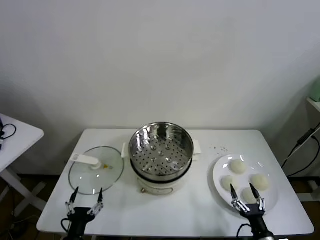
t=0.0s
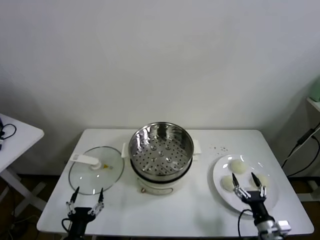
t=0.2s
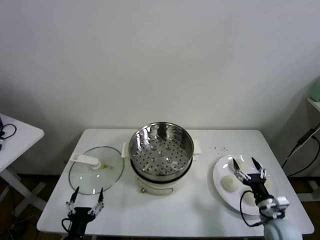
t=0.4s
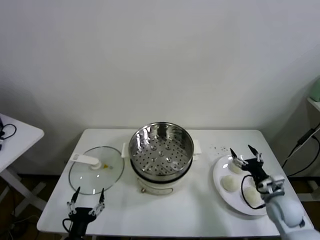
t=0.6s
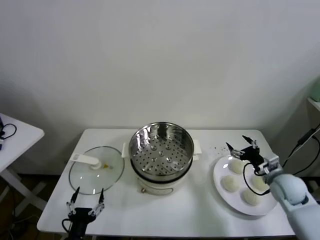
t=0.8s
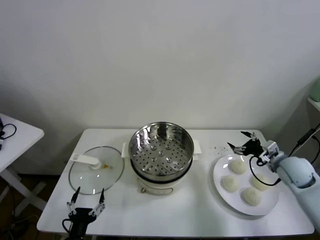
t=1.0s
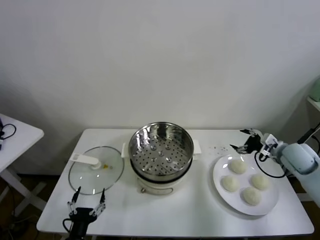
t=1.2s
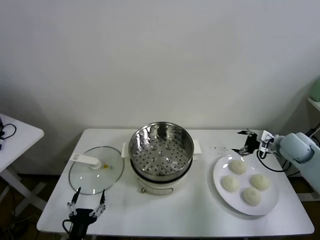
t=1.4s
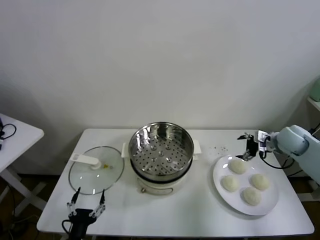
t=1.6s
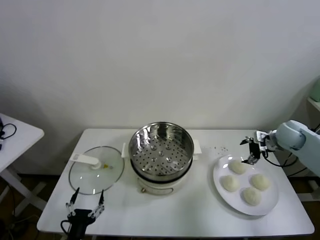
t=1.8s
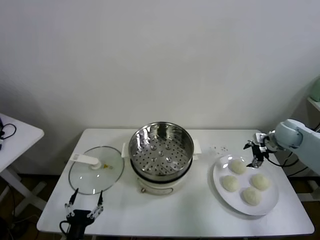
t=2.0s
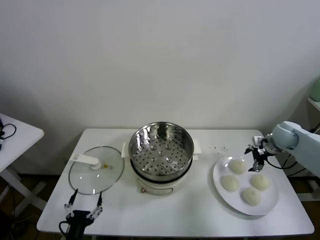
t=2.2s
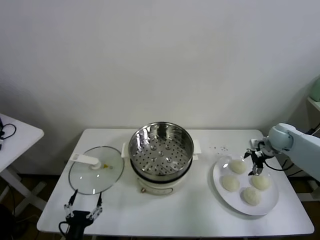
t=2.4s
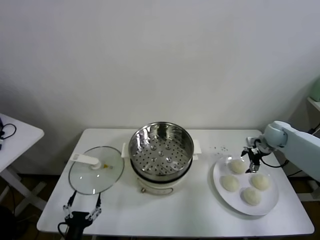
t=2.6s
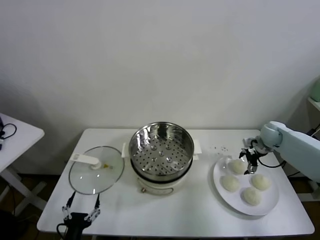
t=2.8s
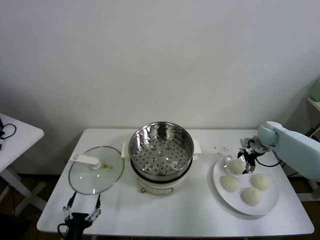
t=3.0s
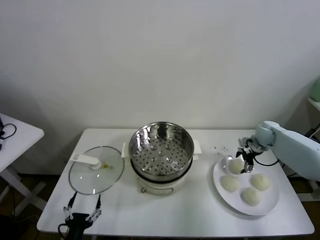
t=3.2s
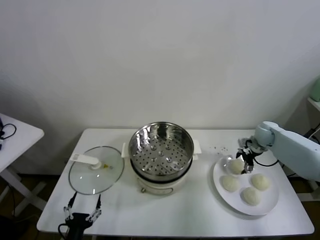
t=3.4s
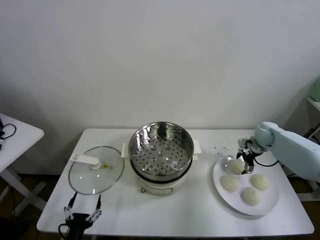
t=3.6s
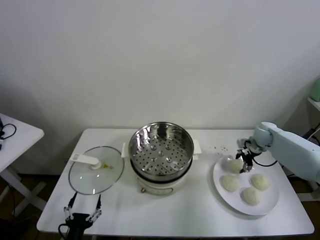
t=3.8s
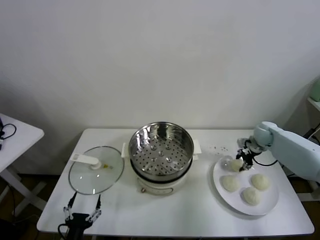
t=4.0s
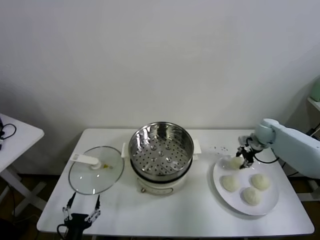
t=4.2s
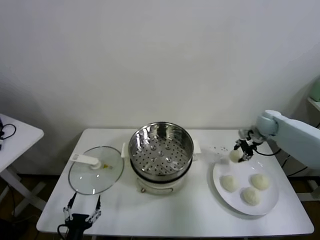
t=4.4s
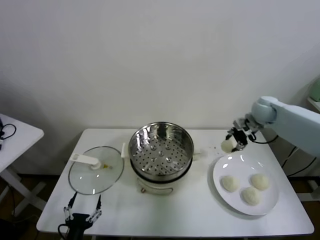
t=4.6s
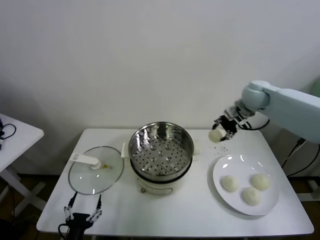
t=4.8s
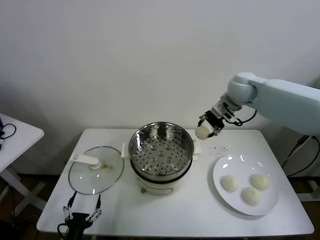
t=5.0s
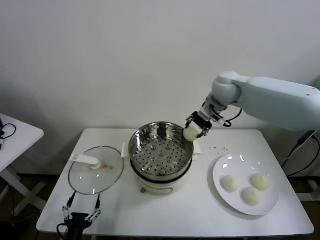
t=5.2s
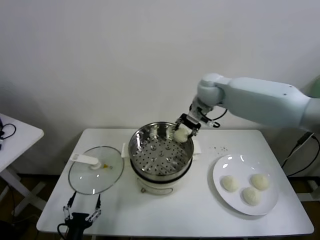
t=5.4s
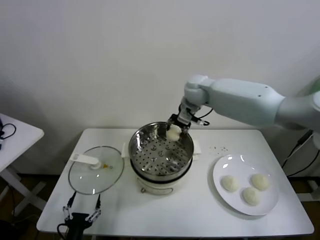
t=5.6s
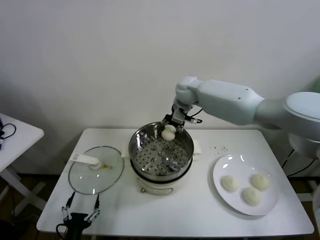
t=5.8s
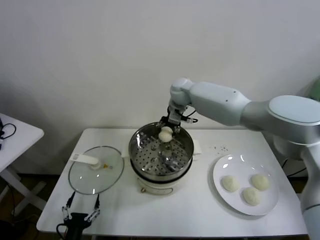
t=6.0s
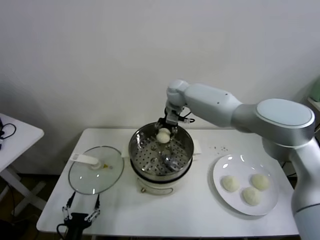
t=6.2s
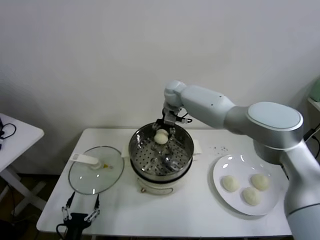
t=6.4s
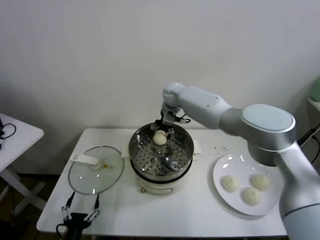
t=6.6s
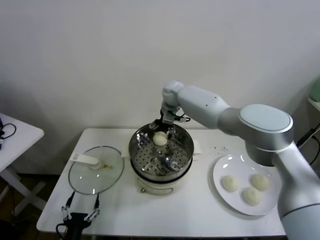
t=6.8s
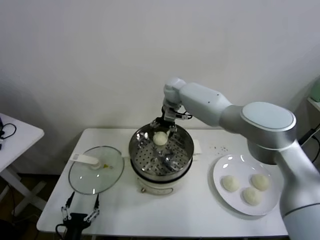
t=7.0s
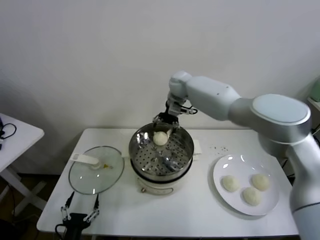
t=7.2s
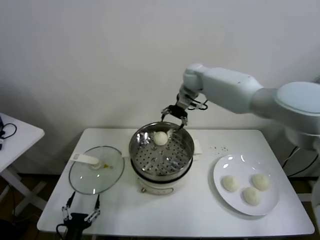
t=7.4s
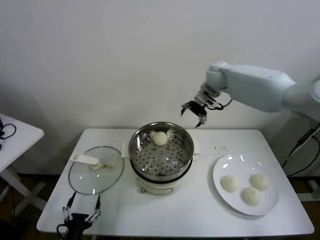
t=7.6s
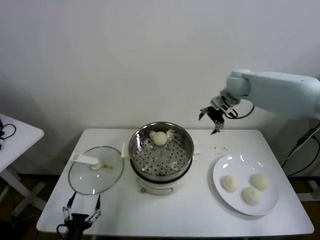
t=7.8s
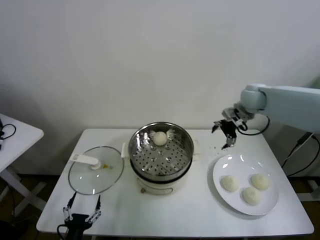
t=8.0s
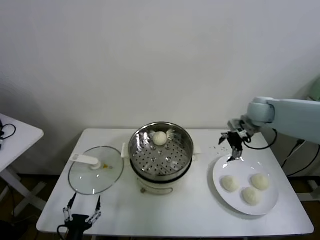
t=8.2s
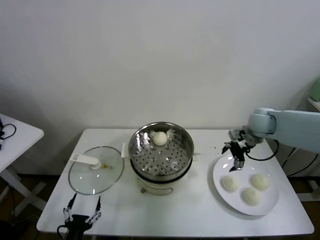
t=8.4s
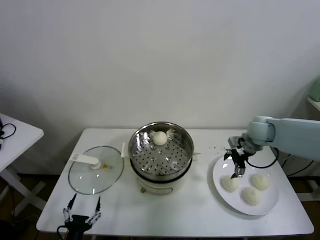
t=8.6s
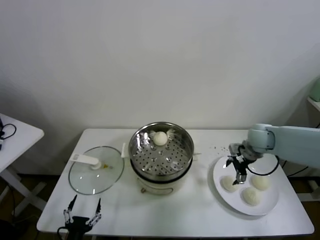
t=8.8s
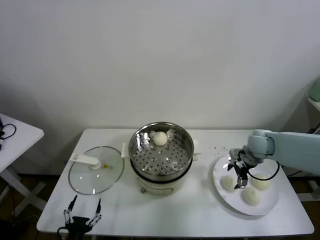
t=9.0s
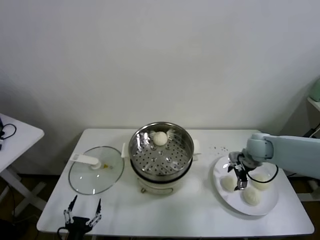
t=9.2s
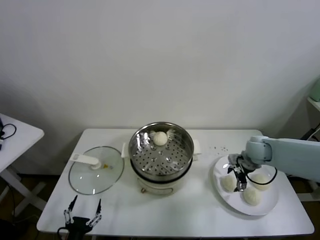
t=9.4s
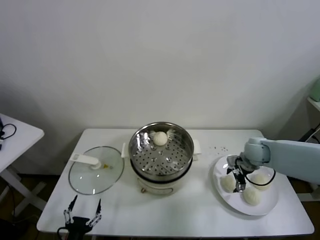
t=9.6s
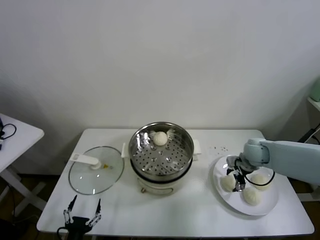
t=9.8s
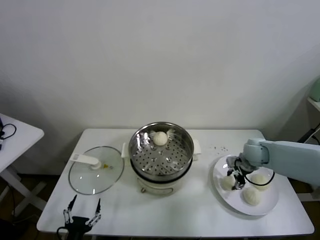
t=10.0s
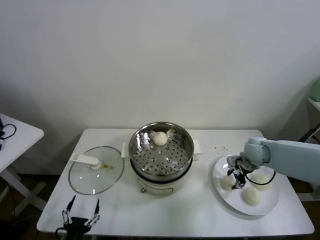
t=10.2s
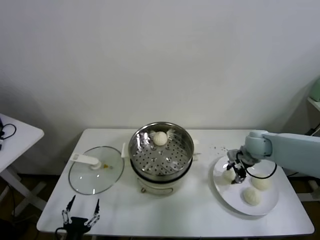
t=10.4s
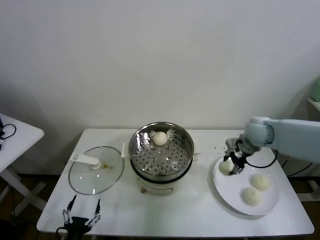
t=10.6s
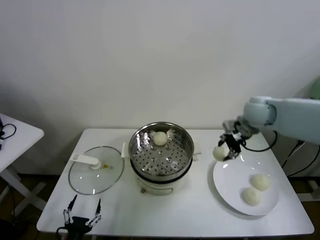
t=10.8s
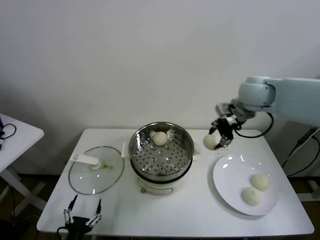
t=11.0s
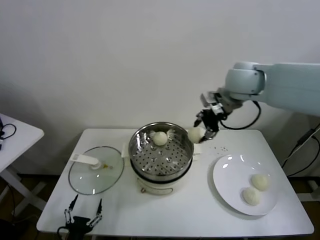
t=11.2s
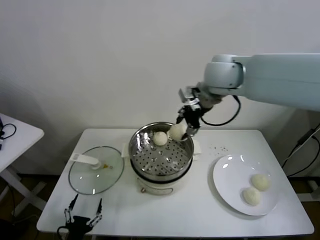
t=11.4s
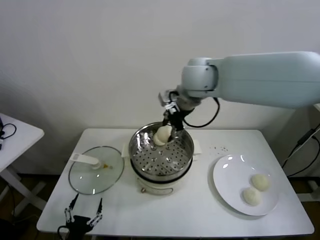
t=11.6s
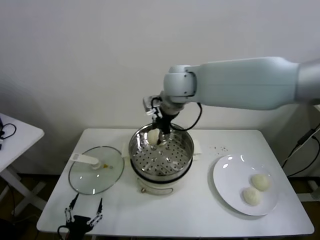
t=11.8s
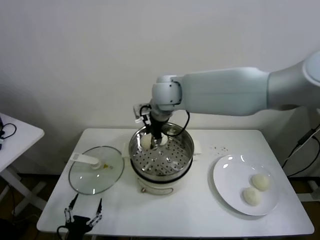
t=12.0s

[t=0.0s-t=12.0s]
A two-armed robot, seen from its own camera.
Task of the whole recording: take steamed baozi put them in steamer.
Step, t=0.0s to t=3.8s: Grasp the baozi in the plate with right gripper.
Step, t=4.0s to t=6.8s: Place the baozi on the steamer with right gripper.
Step, t=7.0s to t=10.0s: Grasp the baozi in the plate with right gripper.
t=1.6s to t=3.0s: The right gripper is displaced forward and downward by approximately 10 cm.
t=3.0s to t=4.4s: The right gripper is displaced upward by about 10 cm, and closes up.
t=4.4s to t=6.0s: The right gripper travels to the left by approximately 30 cm.
t=6.0s to t=7.6s: The right gripper heads to the right, covering approximately 15 cm, and opens its fingers.
t=7.6s to t=9.0s: The right gripper is displaced downward, backward and to the right by roughly 25 cm.
t=9.0s to t=10.4s: The right gripper closes.
t=10.4s to t=12.0s: The right gripper travels to the left and upward by approximately 35 cm.

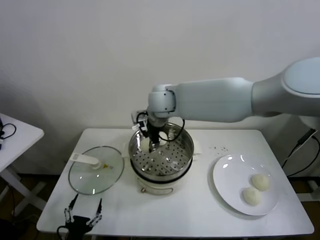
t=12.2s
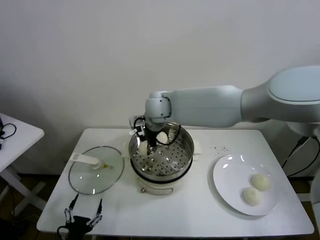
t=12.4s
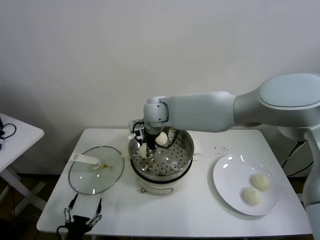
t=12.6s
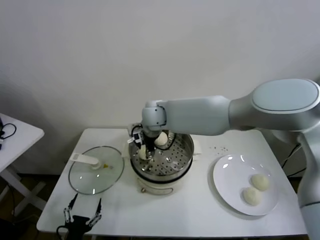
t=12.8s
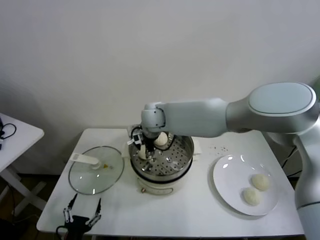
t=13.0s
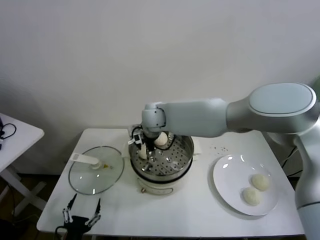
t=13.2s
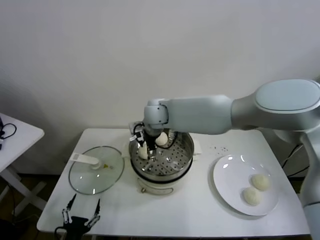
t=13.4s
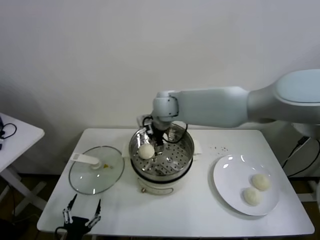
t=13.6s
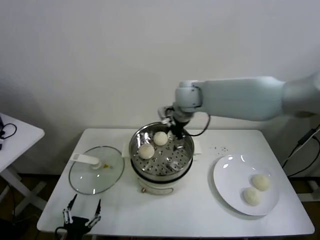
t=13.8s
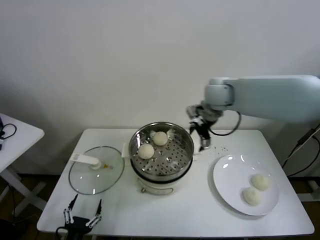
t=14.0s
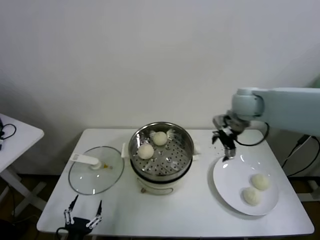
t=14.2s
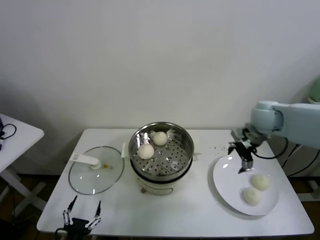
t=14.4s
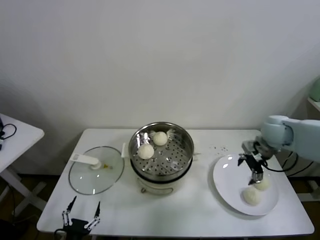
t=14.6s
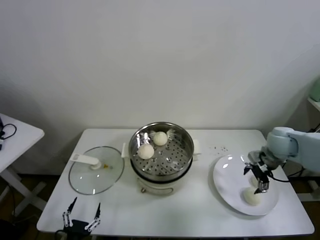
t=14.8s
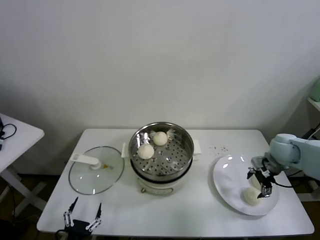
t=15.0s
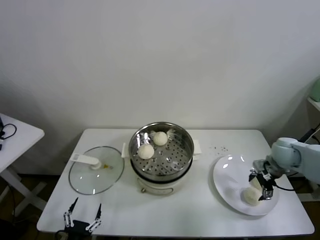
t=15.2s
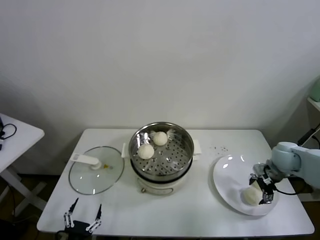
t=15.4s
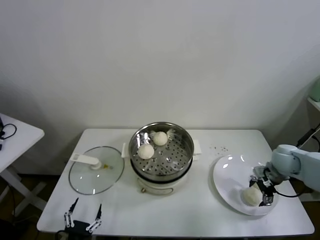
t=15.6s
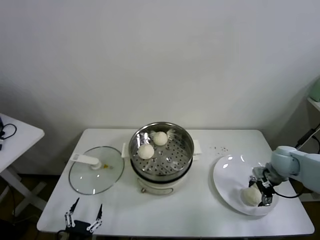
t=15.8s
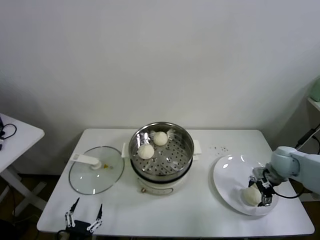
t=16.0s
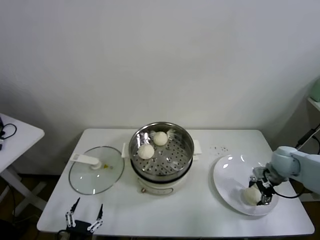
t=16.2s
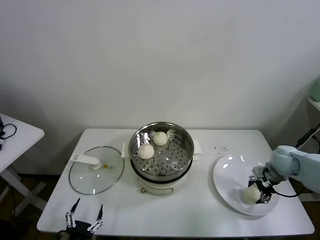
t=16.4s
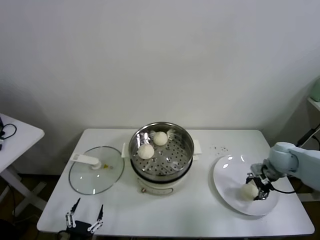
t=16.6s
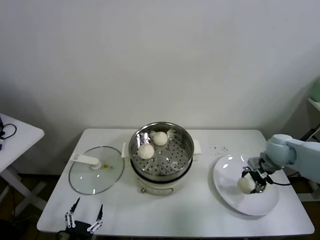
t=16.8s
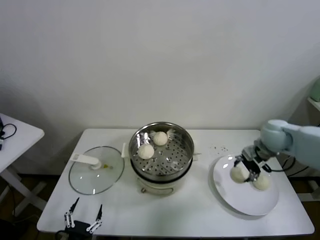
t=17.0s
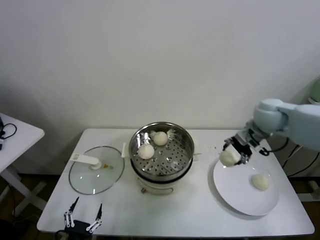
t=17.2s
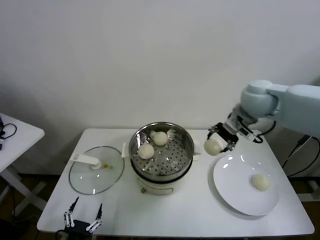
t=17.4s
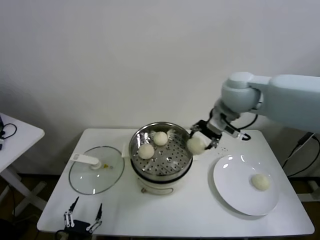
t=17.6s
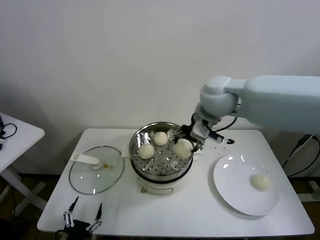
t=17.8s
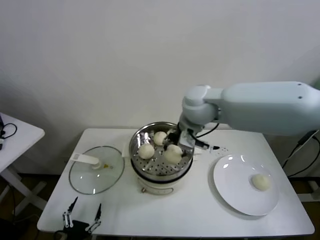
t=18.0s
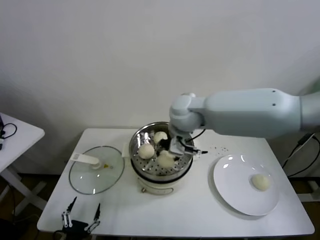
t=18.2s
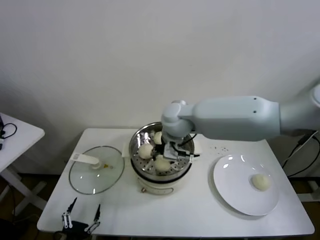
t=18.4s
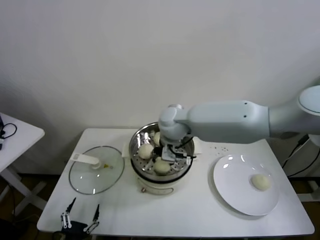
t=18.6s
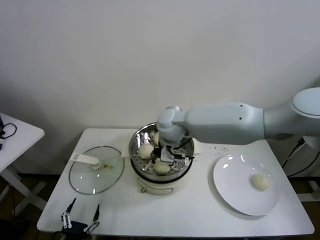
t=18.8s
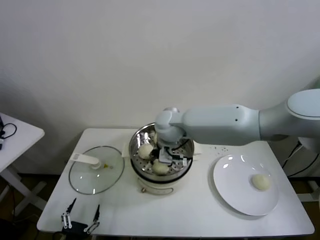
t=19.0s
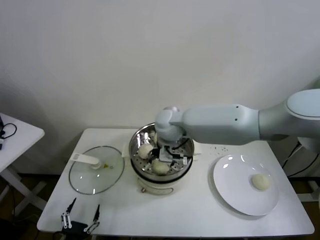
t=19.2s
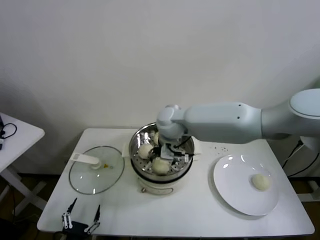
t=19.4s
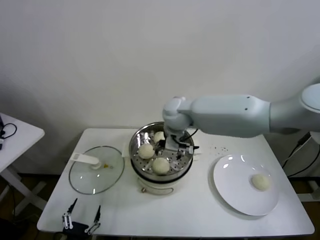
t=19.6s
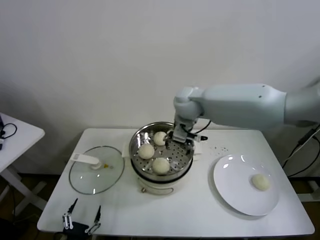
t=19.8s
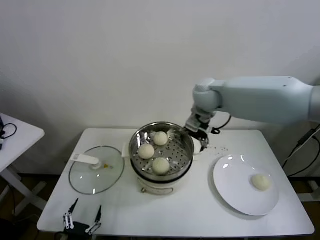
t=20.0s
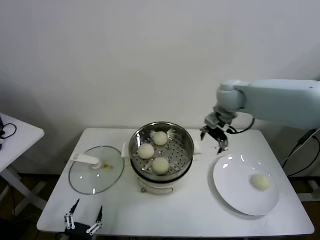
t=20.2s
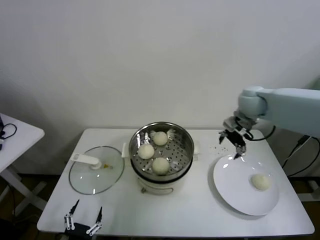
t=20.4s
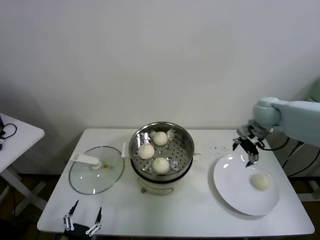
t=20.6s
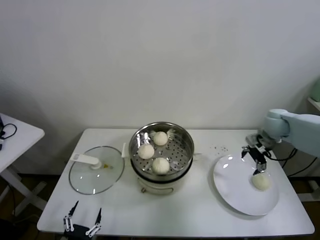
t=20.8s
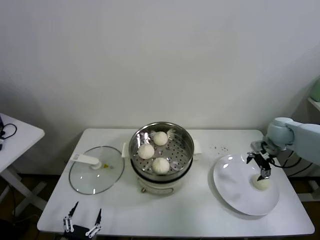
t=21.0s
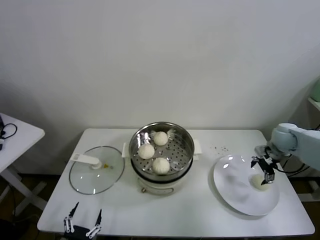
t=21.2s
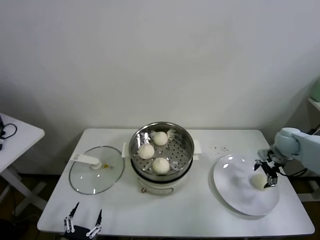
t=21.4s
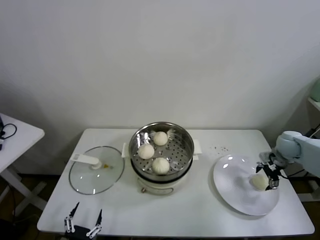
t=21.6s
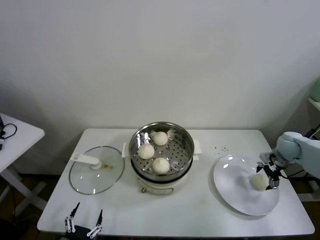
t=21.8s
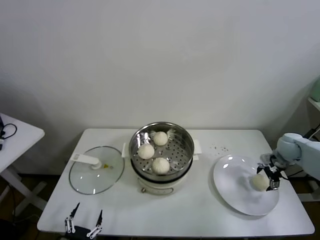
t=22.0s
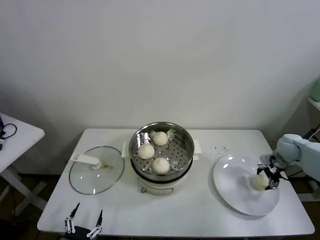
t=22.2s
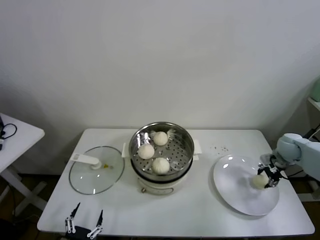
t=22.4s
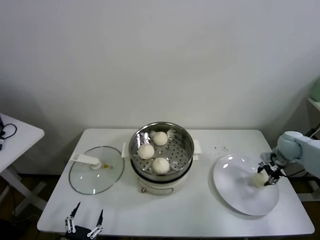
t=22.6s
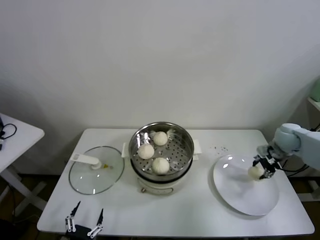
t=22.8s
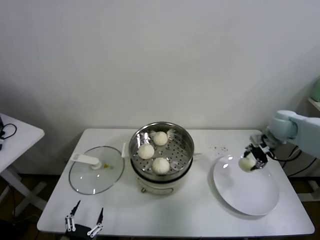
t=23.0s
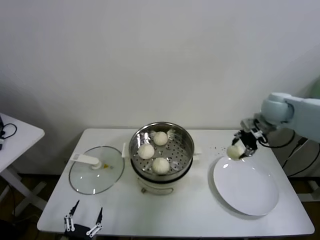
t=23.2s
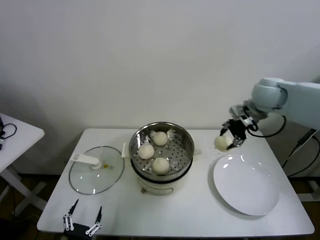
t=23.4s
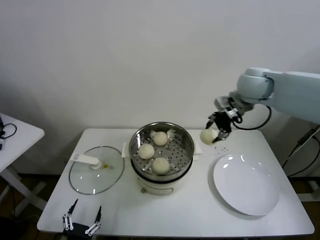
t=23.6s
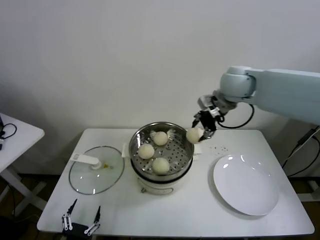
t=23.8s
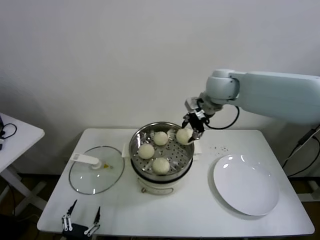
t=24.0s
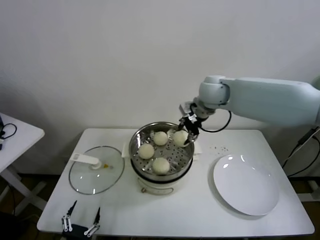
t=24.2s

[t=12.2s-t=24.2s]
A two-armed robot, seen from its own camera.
Task of the whole recording: take steamed baozi put them in steamer.
Step, t=13.4s to t=16.2s: Grasp the baozi in the plate with right gripper.
Step, t=16.4s to t=19.2s: Place the baozi on the steamer with right gripper.
Step, t=19.6s to t=22.2s: Grasp the baozi in the plate with right gripper.
t=12.2s to t=13.8s: The right gripper is displaced to the right by roughly 10 cm, and opens.
t=13.8s to t=15.2s: The right gripper shifts some 35 cm to the right and downward.
t=15.2s to t=16.6s: The right gripper closes its fingers.
t=16.6s to t=18.2s: The right gripper moves to the left and upward, some 40 cm.
t=18.2s to t=19.8s: The right gripper travels forward by approximately 5 cm, and opens up.
t=19.8s to t=21.2s: The right gripper moves to the right, about 35 cm.
t=21.2s to t=22.6s: The right gripper closes up.
t=22.6s to t=24.2s: The right gripper heads to the left and upward, covering roughly 40 cm.
